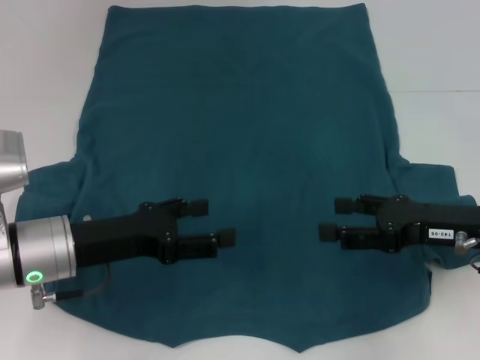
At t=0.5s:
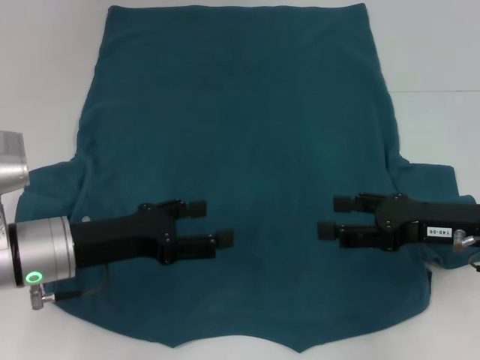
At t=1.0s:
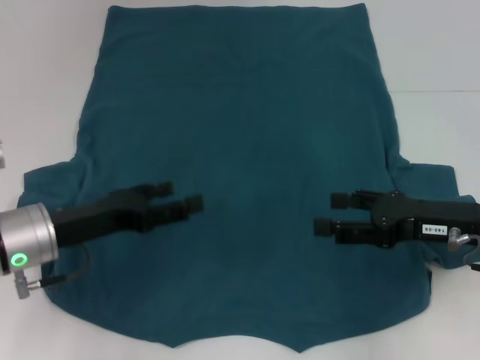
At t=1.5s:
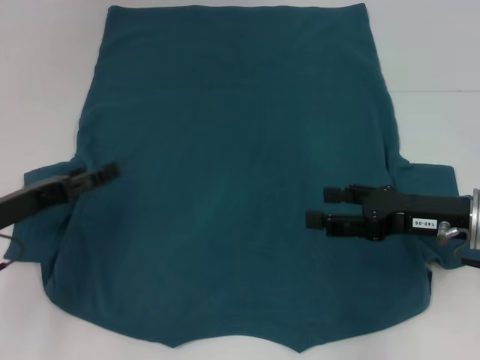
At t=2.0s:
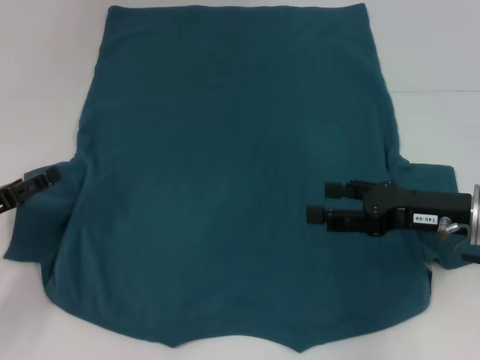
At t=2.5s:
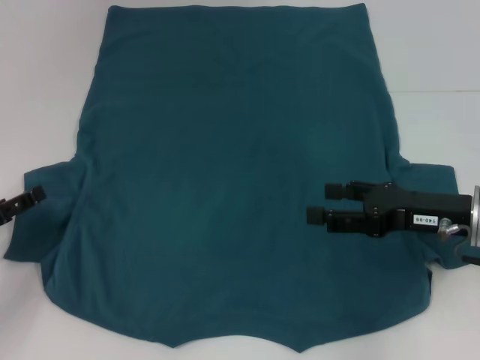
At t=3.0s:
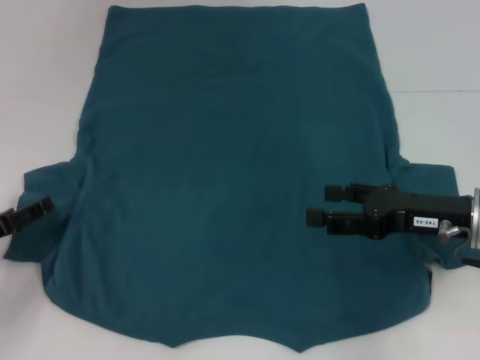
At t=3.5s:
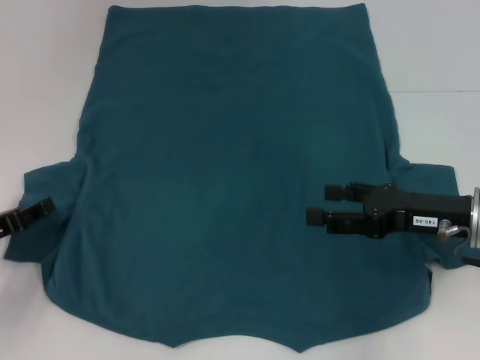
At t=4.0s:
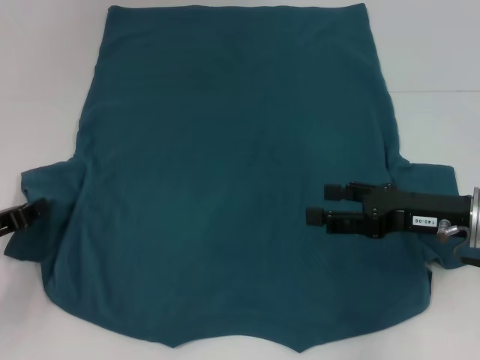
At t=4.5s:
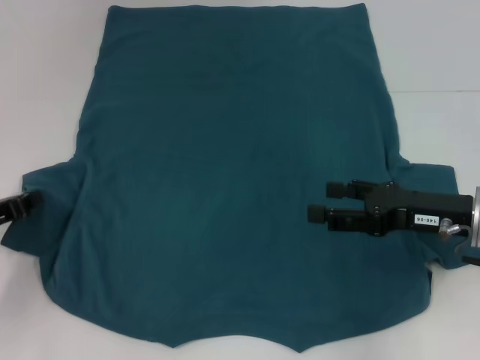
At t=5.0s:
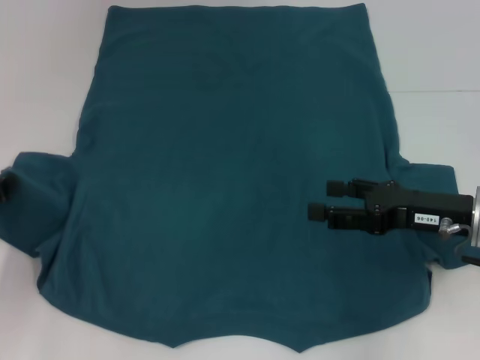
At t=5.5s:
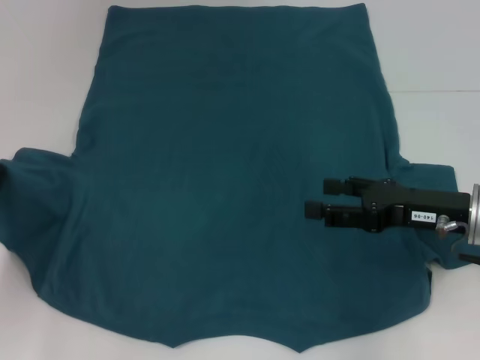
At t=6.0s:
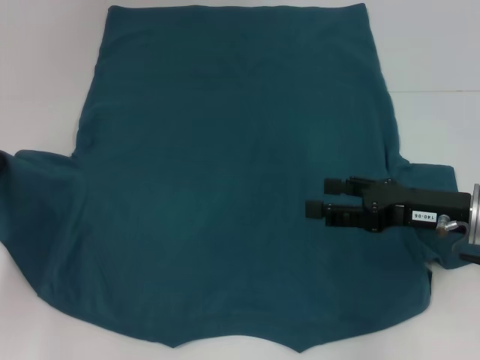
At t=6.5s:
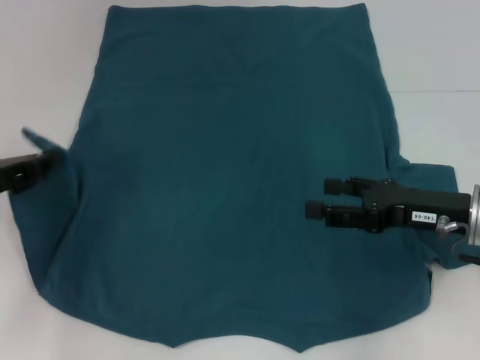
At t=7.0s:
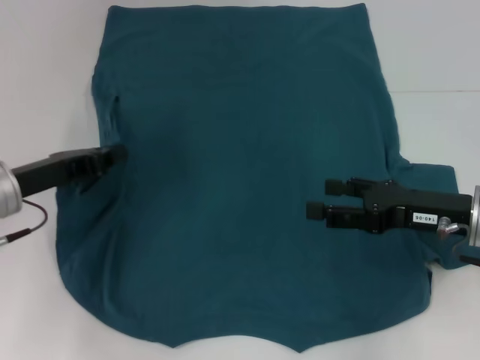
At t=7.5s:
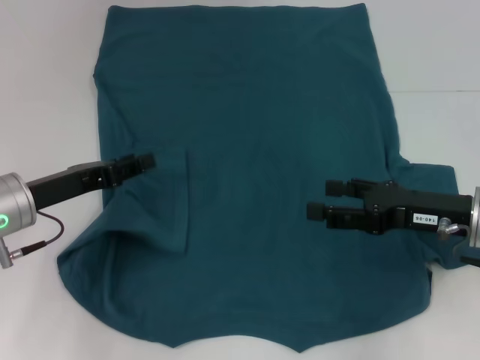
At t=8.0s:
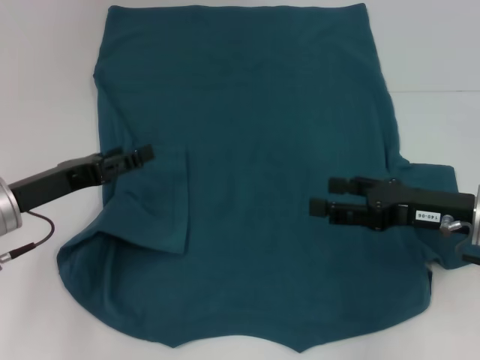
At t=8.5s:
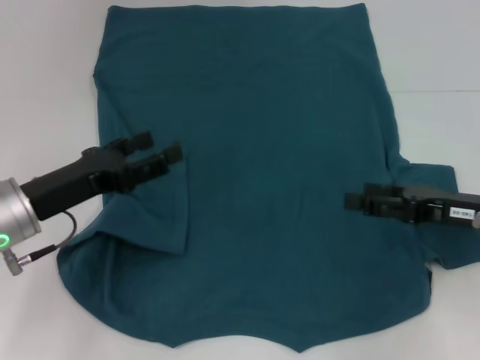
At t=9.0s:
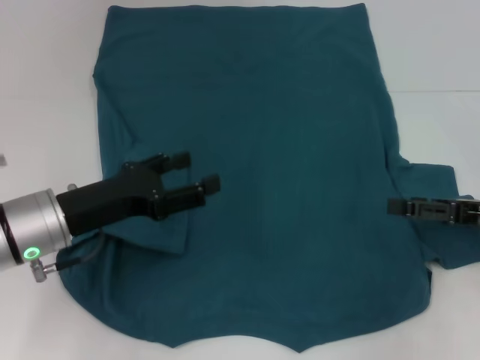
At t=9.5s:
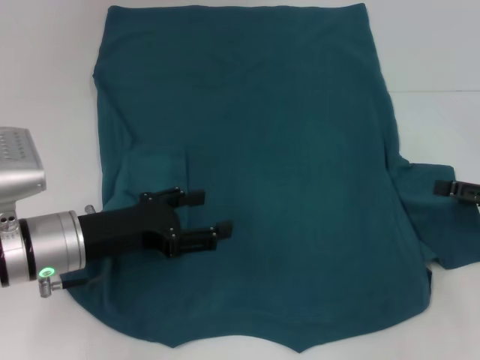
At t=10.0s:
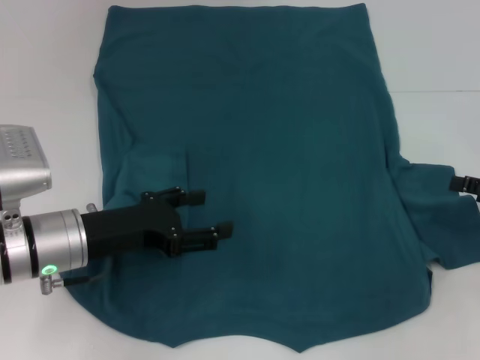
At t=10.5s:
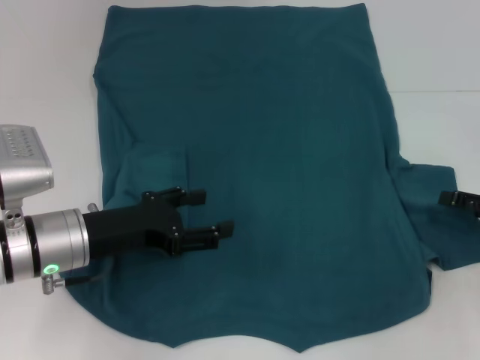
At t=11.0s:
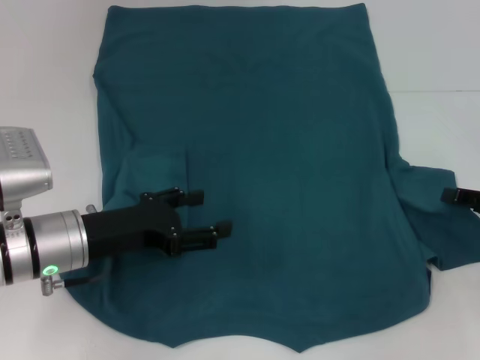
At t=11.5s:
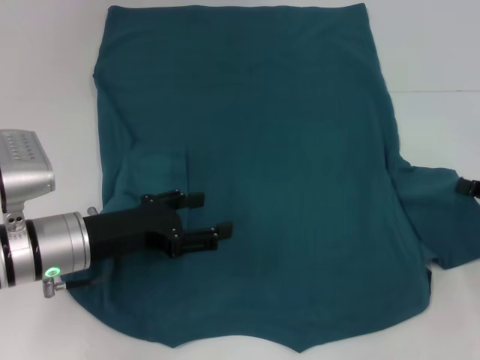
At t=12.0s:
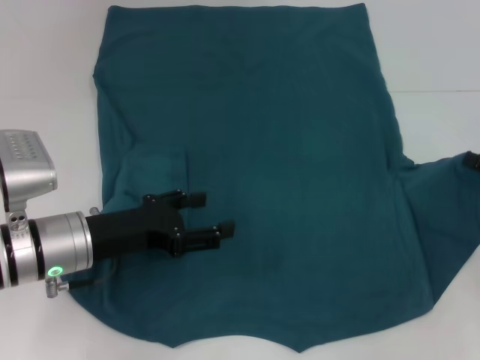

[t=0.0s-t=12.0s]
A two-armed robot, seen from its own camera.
Step, t=0.0s to t=7.5s: Fold the bottom left sleeve with your left hand.
t=0.0s to t=2.0s: The left gripper heads to the left, covering about 10 cm.
t=2.0s to t=4.0s: The left gripper closes up.
t=4.0s to t=6.0s: The left gripper changes place by approximately 5 cm.
t=6.0s to t=8.0s: The left gripper goes approximately 10 cm to the right, and opens.
t=8.0s to t=10.0s: The left gripper heads to the right, covering approximately 5 cm, while the right gripper heads to the right, covering some 10 cm.
t=10.0s to t=12.0s: The right gripper closes.

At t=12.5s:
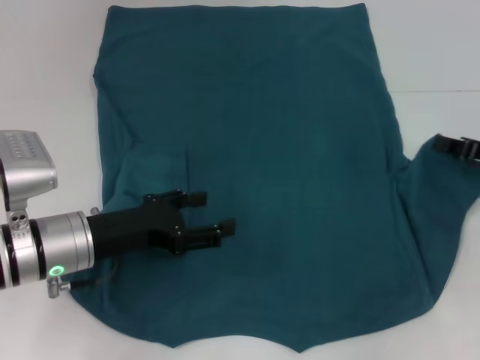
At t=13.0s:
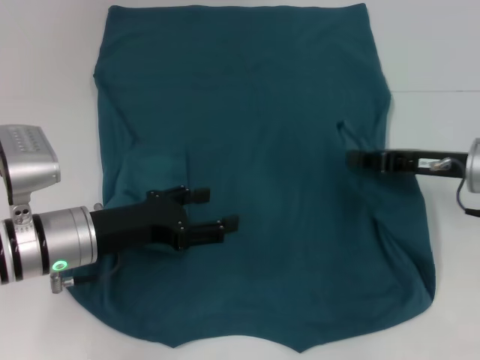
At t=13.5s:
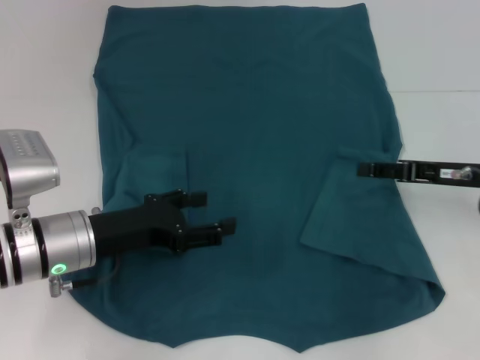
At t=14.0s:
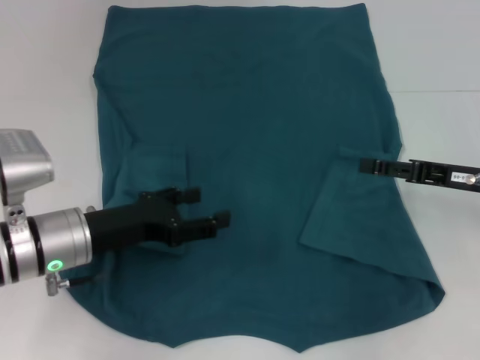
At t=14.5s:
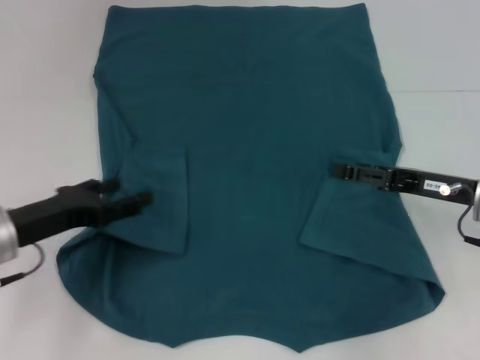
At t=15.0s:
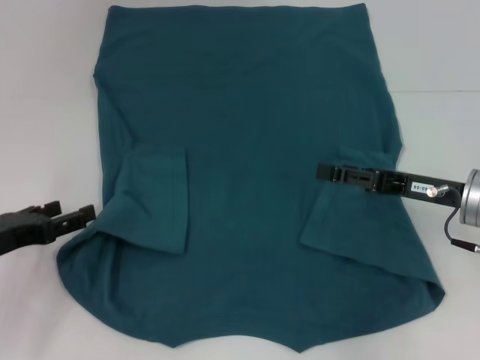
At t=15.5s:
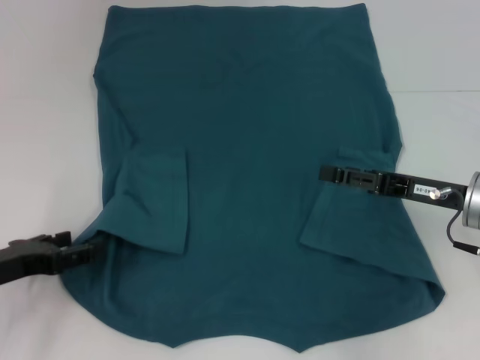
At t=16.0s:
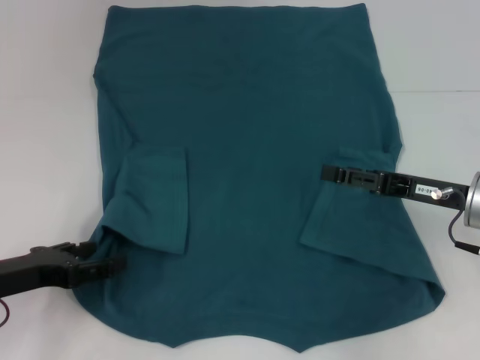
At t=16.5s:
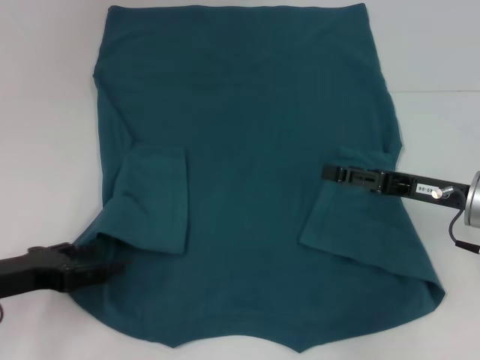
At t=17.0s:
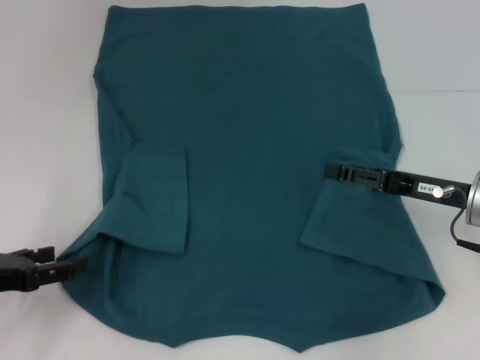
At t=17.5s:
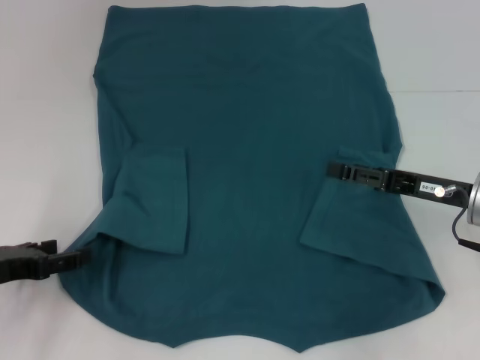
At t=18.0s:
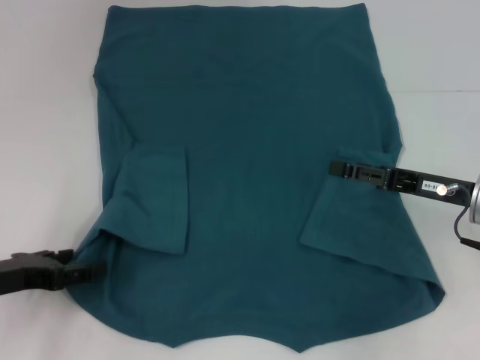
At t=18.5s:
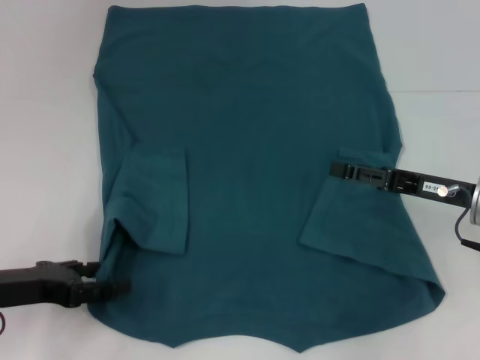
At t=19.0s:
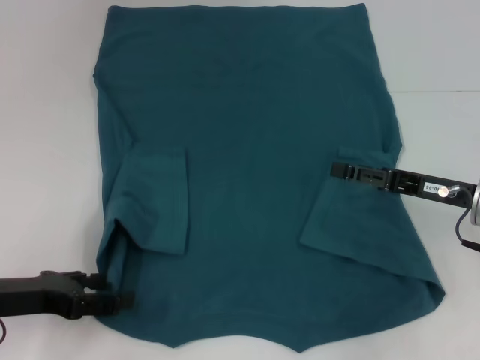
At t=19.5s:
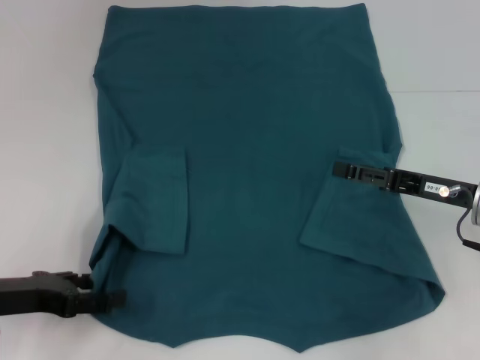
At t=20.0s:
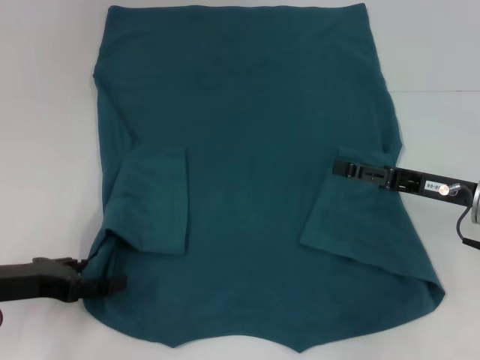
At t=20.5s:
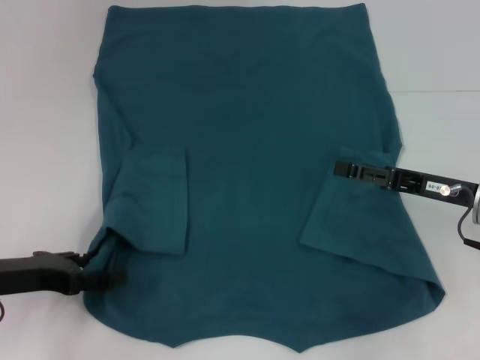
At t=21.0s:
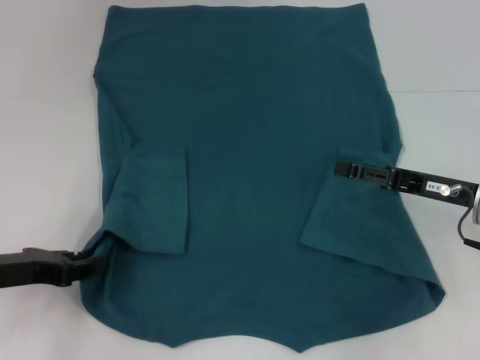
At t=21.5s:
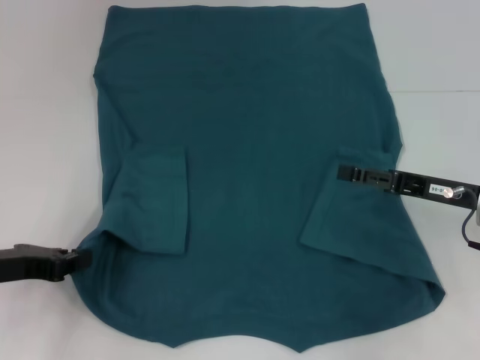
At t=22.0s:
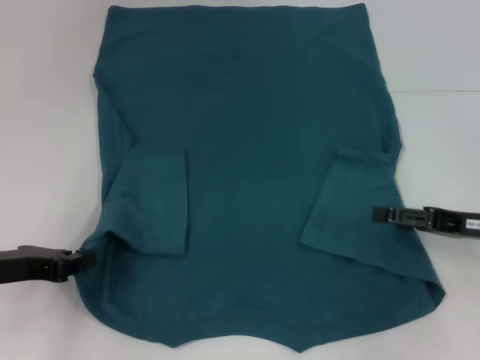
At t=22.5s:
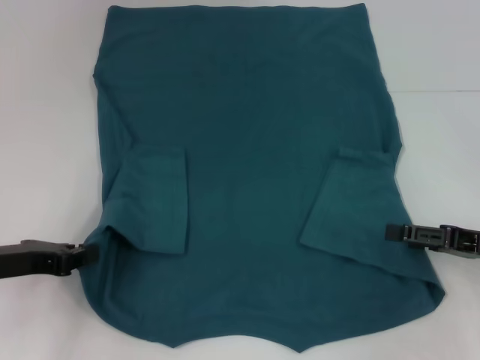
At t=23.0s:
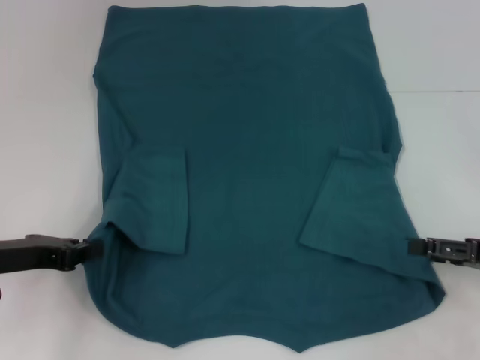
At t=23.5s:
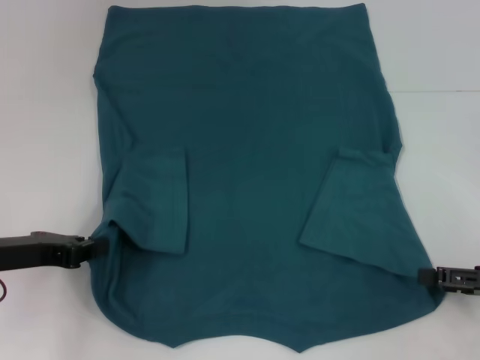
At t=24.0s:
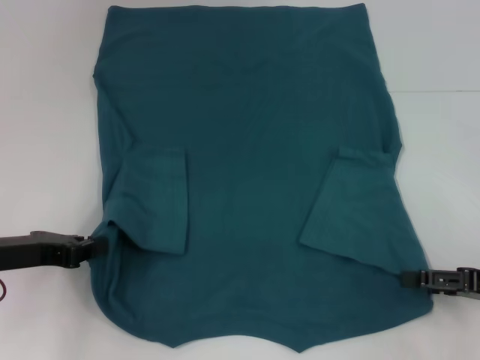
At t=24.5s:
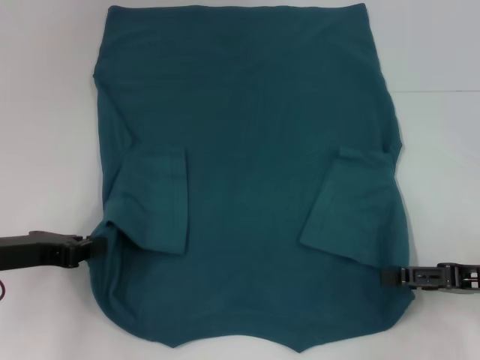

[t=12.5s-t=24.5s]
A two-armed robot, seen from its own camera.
Step, t=14.0s to t=21.5s: Grab the bottom left corner with your left hand.
t=12.5s to t=14.5s: The two grippers go approximately 5 cm to the left. The right gripper opens.
t=14.5s to t=16.5s: The left gripper shifts by approximately 5 cm.
t=16.5s to t=18.5s: The grippers make only small movements.
t=18.5s to t=20.5s: Neither gripper changes place.
t=20.5s to t=22.5s: The right gripper moves to the right, about 5 cm, while the left gripper closes up.
t=22.5s to t=24.5s: The grippers move only a little.

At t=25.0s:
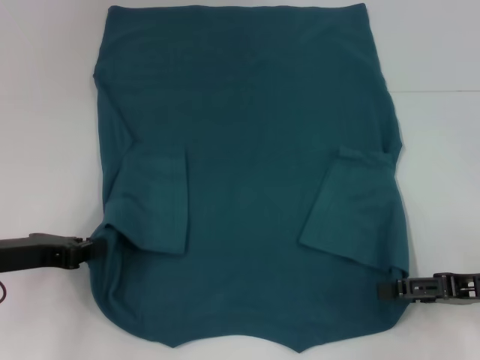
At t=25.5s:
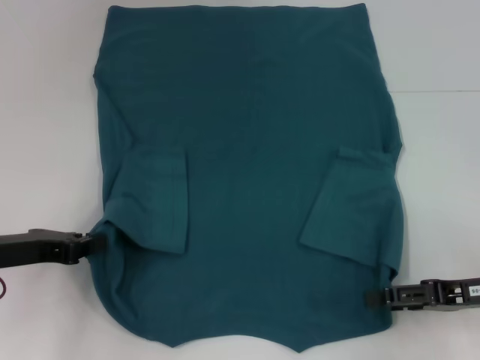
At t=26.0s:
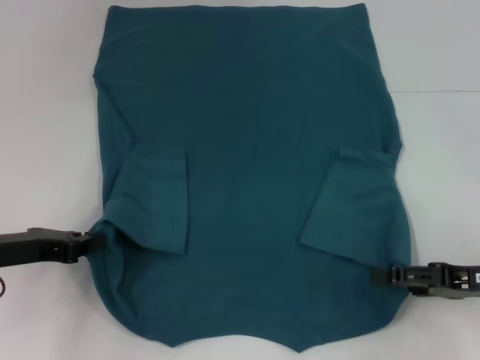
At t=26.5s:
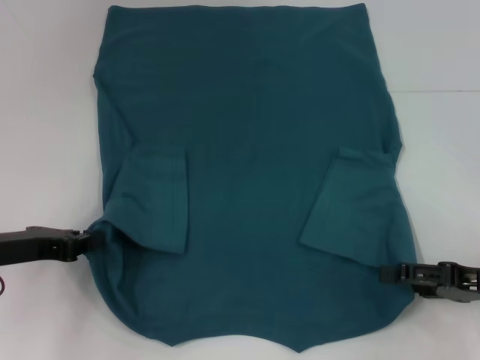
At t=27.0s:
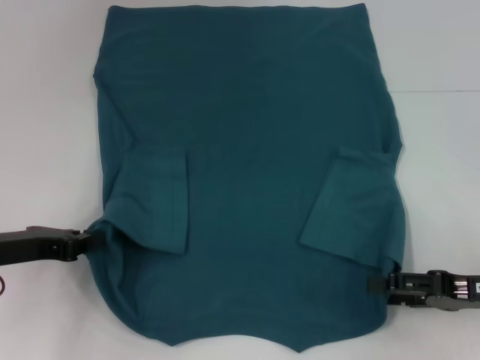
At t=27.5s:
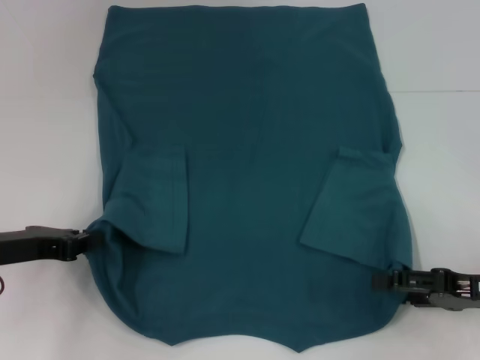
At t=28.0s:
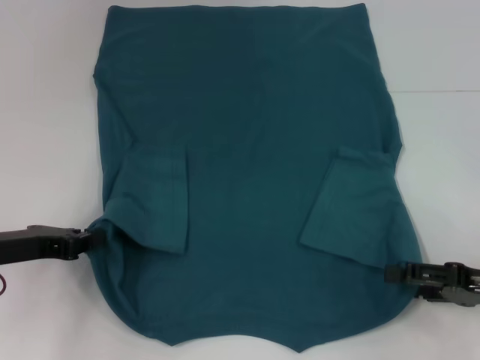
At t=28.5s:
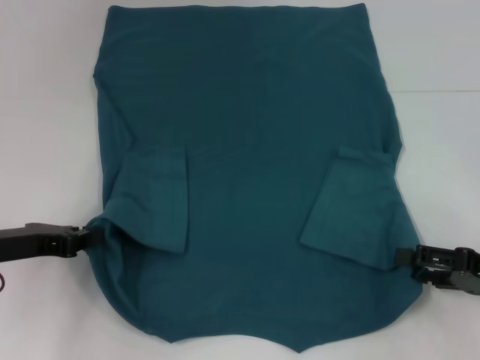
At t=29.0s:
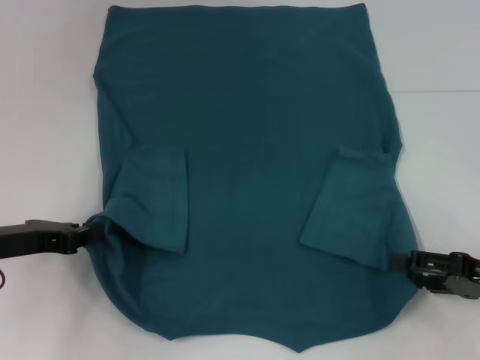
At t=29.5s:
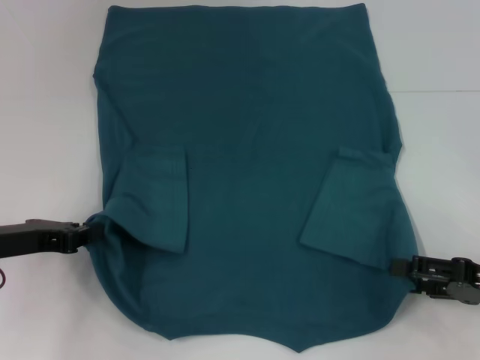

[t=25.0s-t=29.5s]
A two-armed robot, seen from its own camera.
t=25.0s to t=29.5s: The grippers move only a little.
